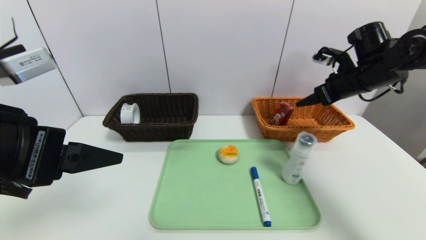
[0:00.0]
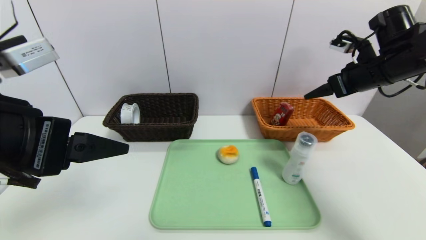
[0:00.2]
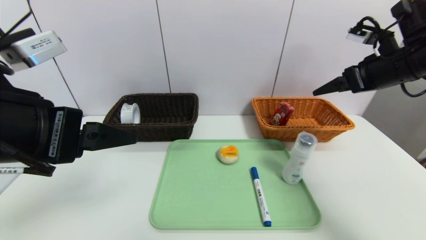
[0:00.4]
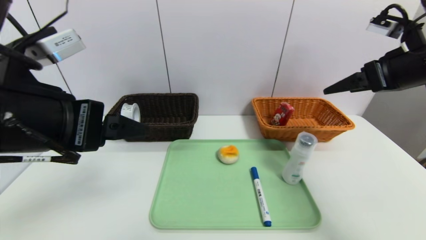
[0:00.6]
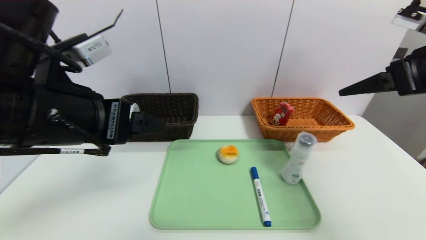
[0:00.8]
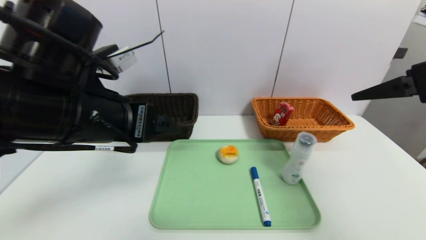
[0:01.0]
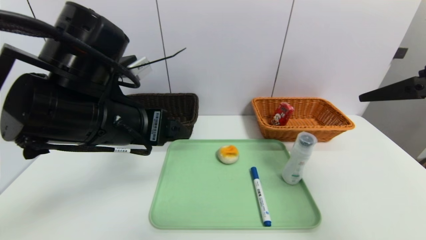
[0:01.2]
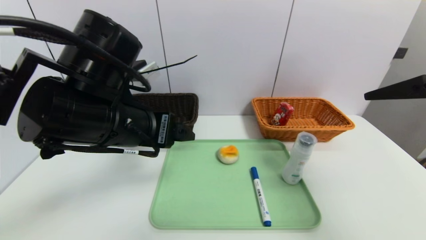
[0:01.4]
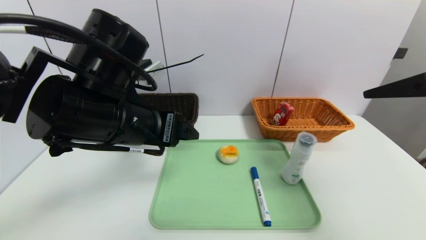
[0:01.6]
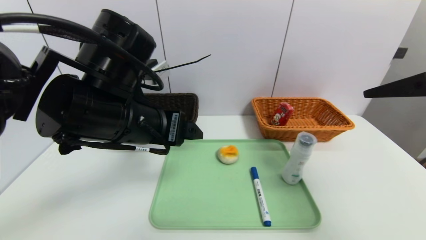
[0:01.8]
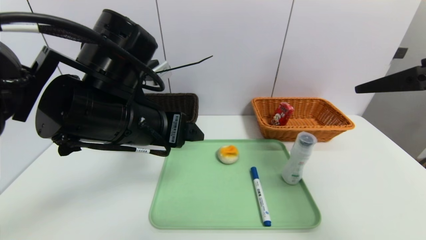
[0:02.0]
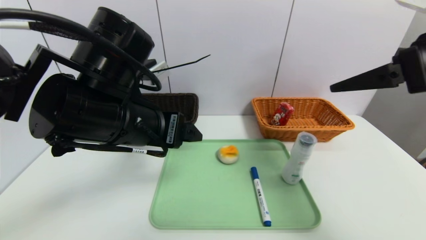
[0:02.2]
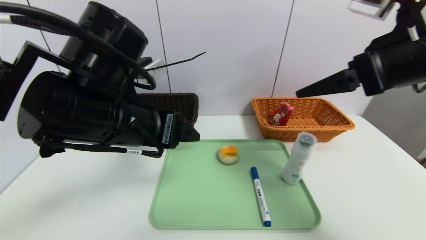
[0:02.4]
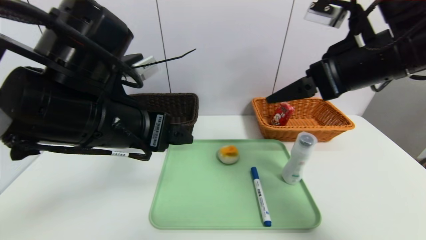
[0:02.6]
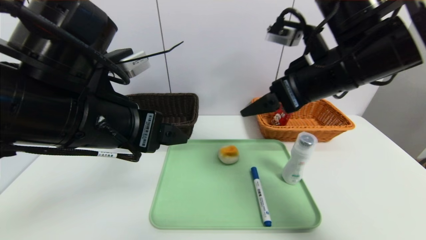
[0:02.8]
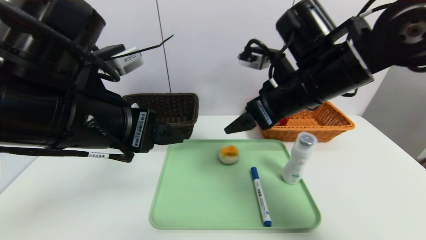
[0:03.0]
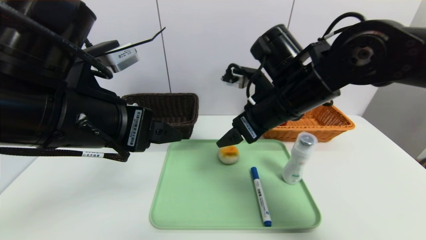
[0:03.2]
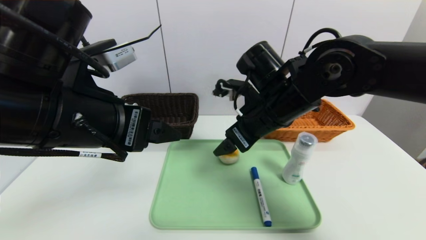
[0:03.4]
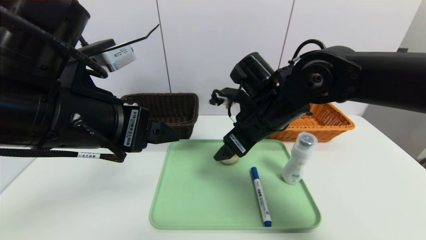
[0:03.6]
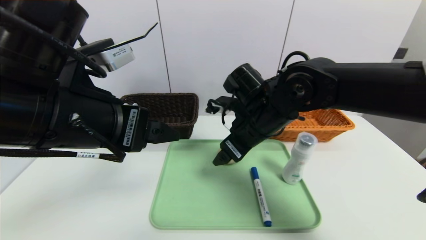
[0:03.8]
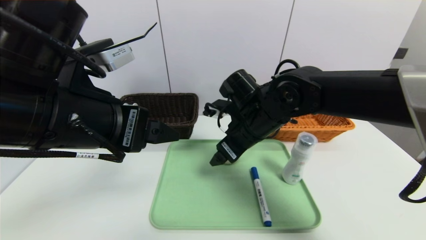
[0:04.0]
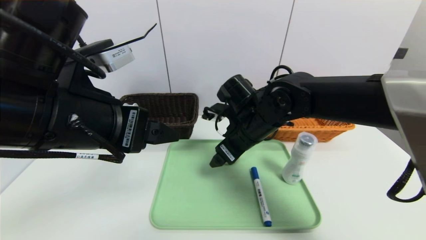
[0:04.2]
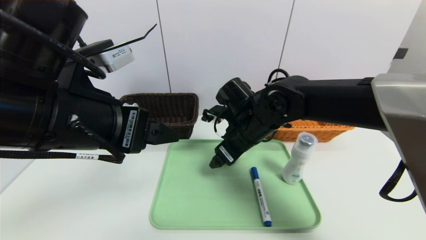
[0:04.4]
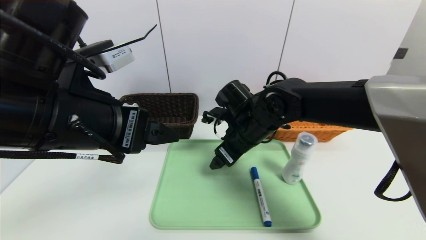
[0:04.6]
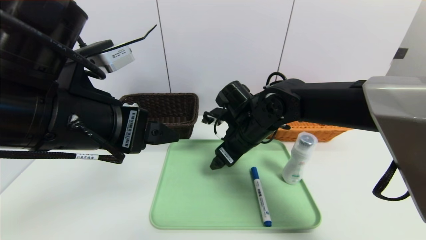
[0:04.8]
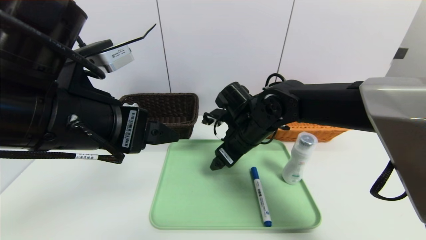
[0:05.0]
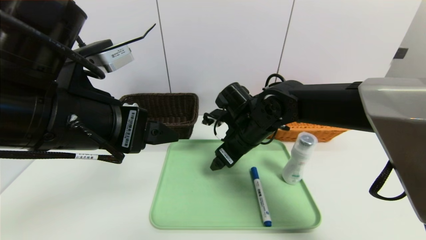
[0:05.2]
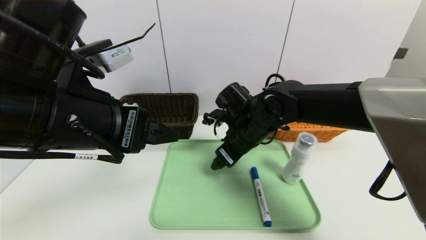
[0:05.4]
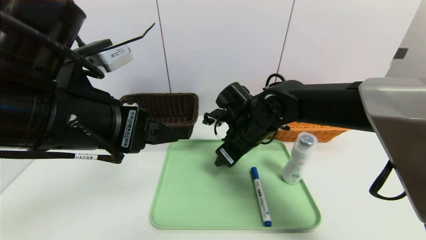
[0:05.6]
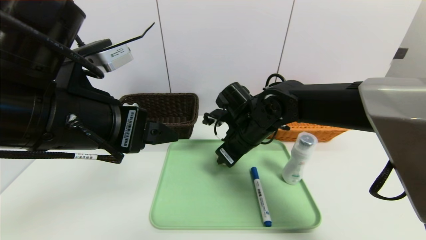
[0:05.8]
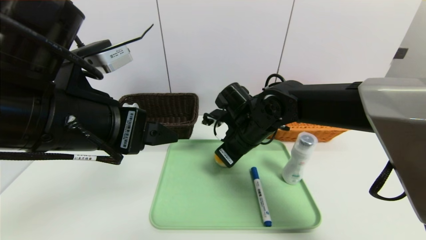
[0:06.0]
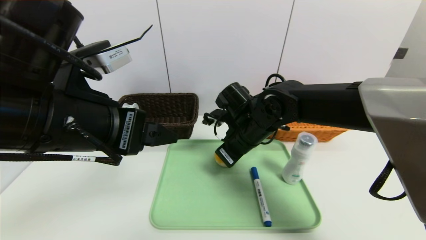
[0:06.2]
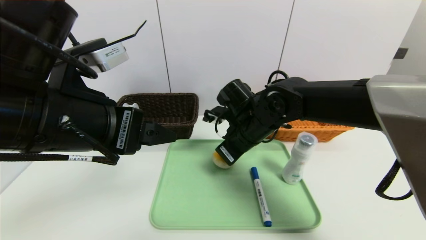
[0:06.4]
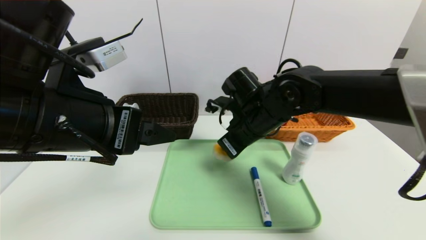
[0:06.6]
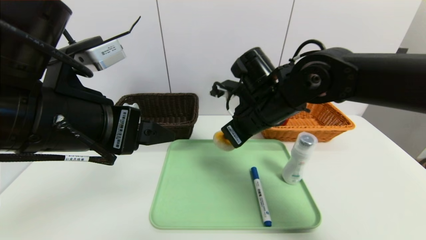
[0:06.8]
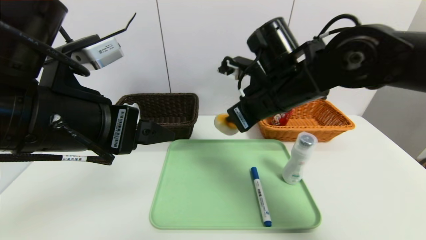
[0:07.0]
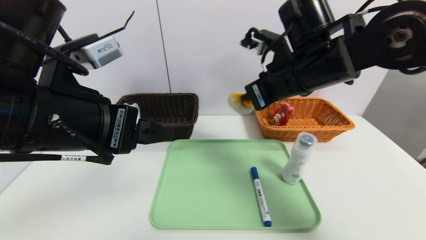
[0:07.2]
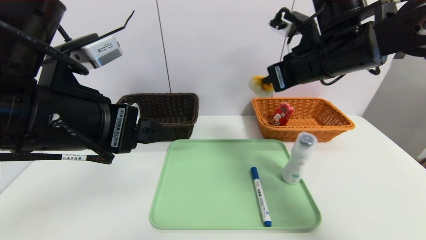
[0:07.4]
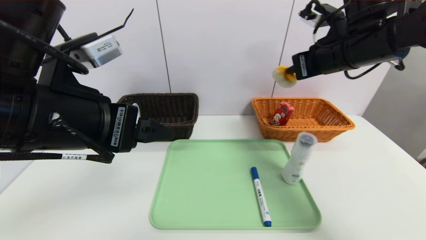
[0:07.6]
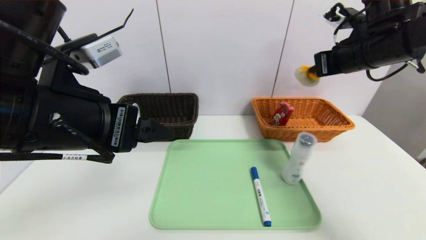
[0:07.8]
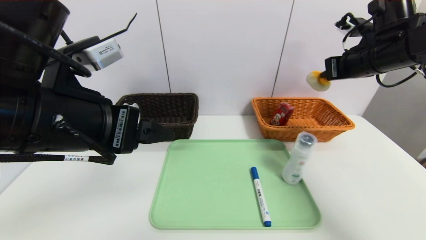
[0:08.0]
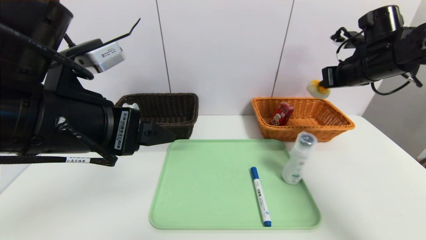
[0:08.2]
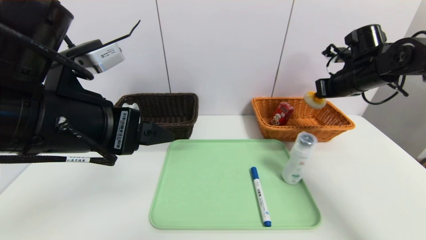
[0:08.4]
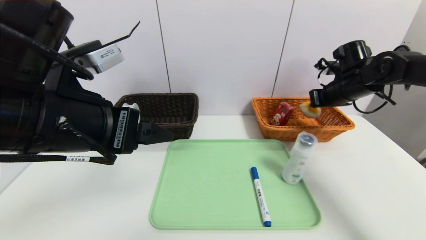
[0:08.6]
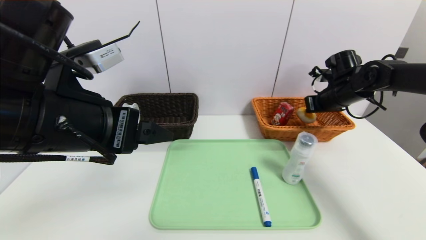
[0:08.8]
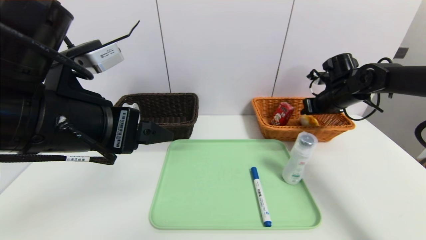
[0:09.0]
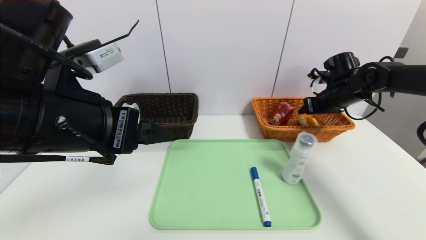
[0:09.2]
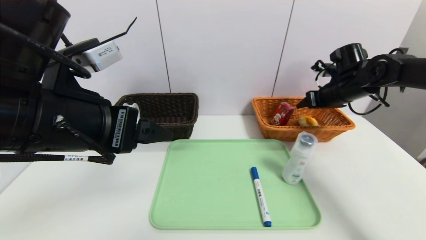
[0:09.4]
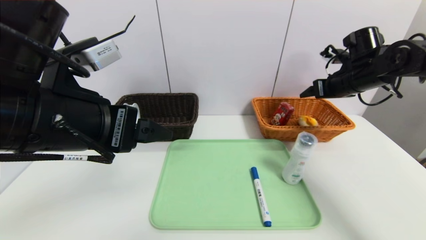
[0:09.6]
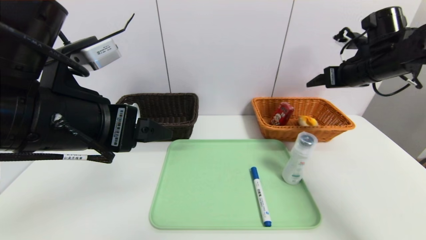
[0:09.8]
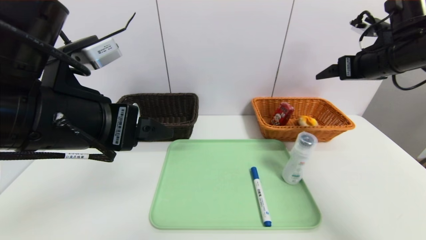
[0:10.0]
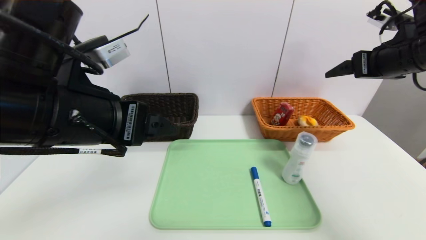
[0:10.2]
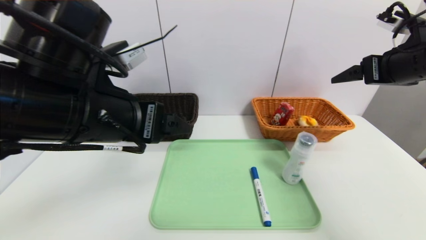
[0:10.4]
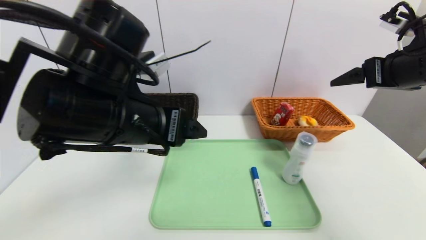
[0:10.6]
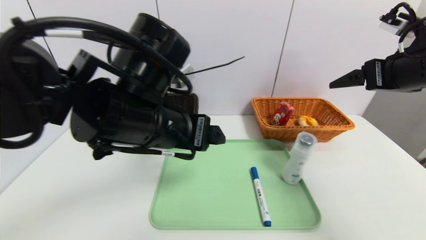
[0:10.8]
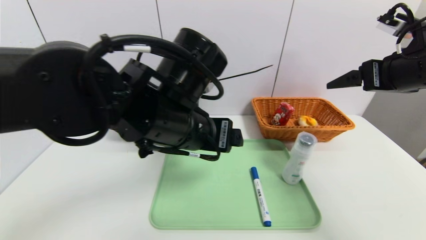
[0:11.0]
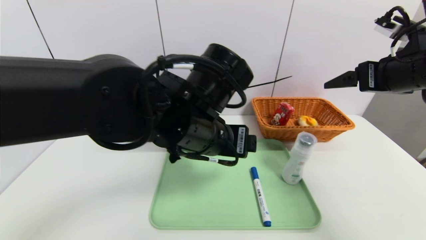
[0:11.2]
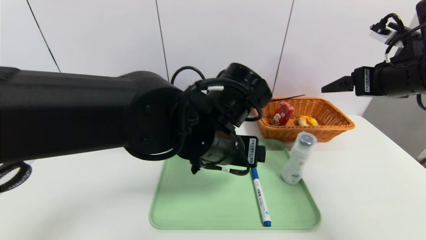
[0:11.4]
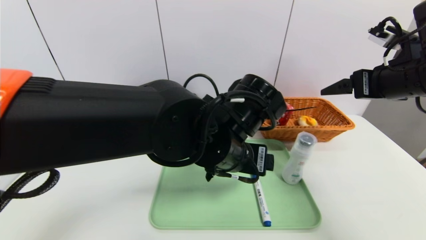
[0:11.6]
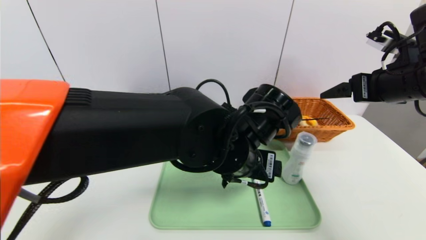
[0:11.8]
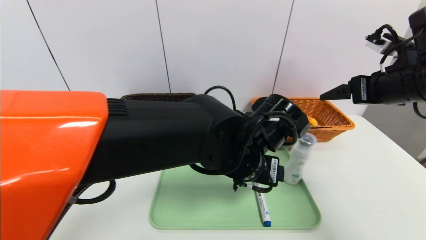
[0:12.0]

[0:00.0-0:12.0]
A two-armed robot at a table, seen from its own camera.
Task of the whole recording: place the food in the right basket with the right gripper, and place the non food items in the left basket with the left gripper.
Step, 0.2 to 9.4 s: Grasp the egg yolk pastry and put it in the right basket.
0.0 to 1.6 s: The right gripper travels backward by approximately 20 cm, while the left gripper goes about 15 cm to the right and forward.
1.6 to 3.0 s: The right gripper moves to the left and forward, roughly 20 cm; the left gripper moves about 5 cm.
3.0 to 4.4 s: The right gripper shifts roughly 15 cm downward, to the left and forward.
4.4 to 6.0 s: The right gripper closes its fingers.
6.0 to 7.6 s: The right gripper heads to the right and upward, covering some 25 cm.
7.6 to 9.0 s: The right gripper travels downward, forward and to the right by about 20 cm, and opens.
9.0 to 10.4 s: The right gripper is displaced backward and upward by about 20 cm, and opens up.
10.4 to 12.0 s: The left gripper heads to the right and downward, covering some 20 cm.

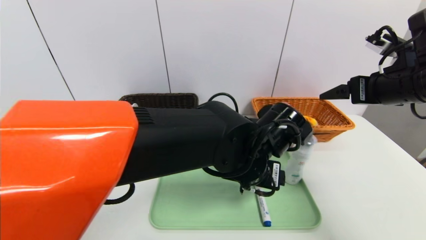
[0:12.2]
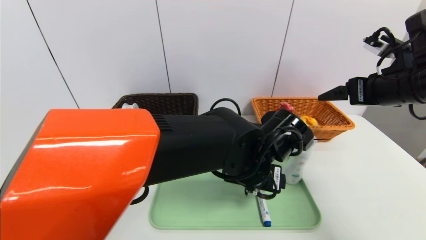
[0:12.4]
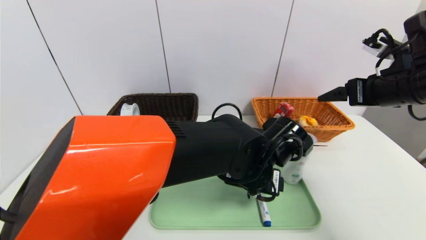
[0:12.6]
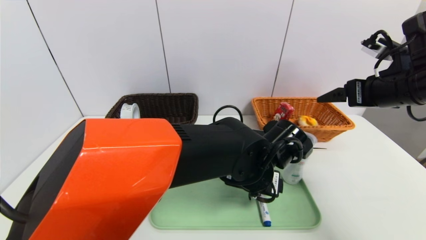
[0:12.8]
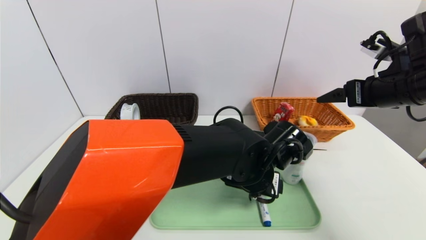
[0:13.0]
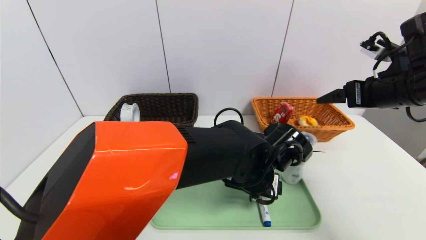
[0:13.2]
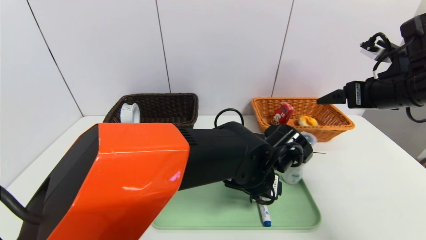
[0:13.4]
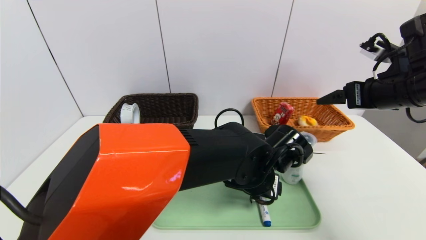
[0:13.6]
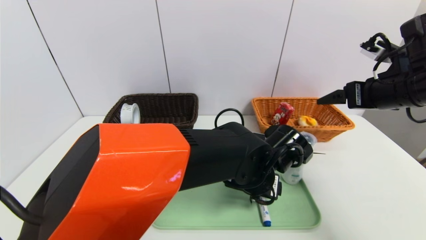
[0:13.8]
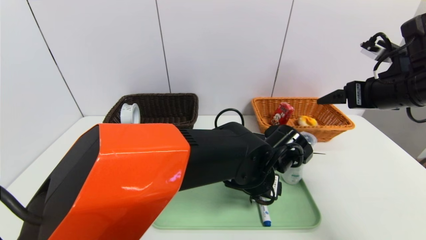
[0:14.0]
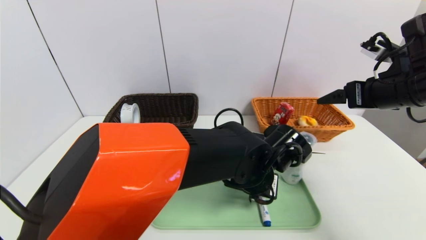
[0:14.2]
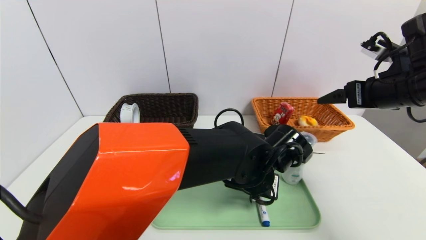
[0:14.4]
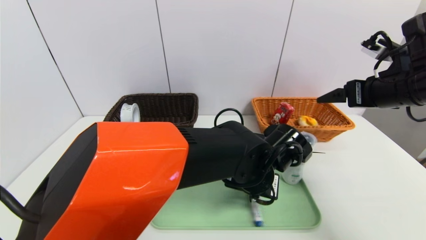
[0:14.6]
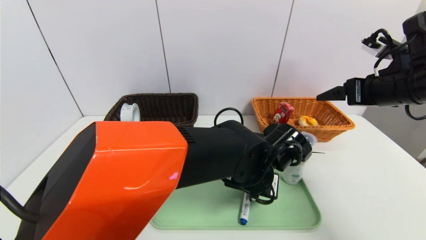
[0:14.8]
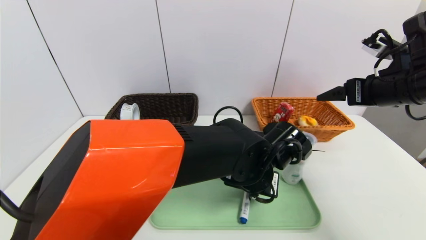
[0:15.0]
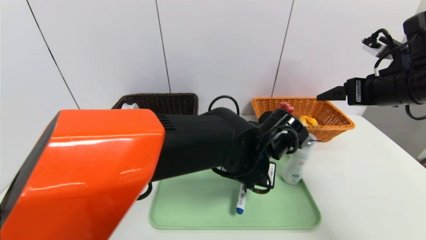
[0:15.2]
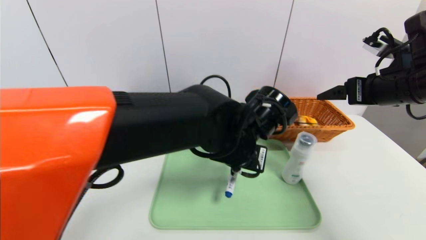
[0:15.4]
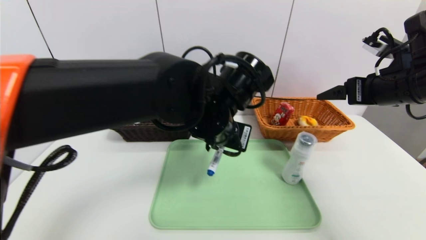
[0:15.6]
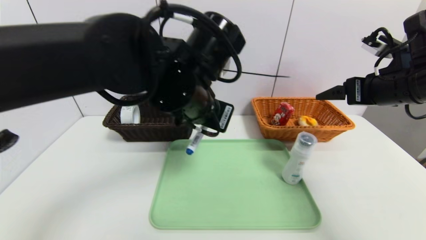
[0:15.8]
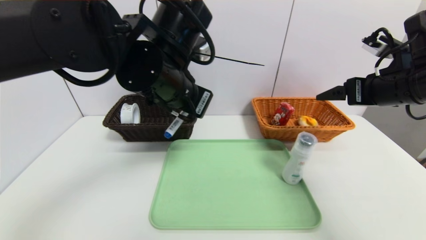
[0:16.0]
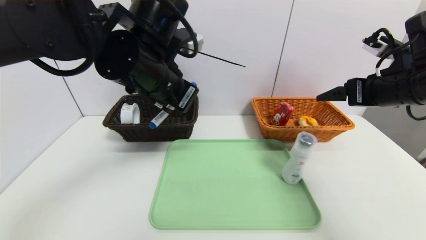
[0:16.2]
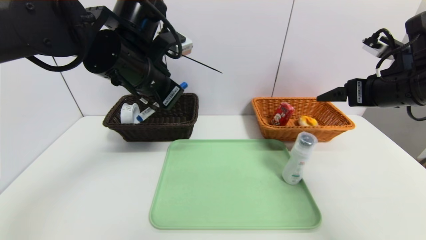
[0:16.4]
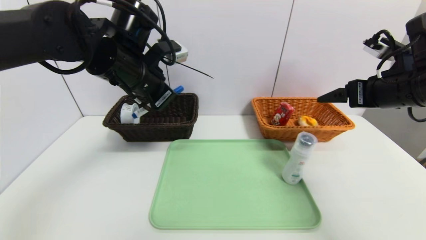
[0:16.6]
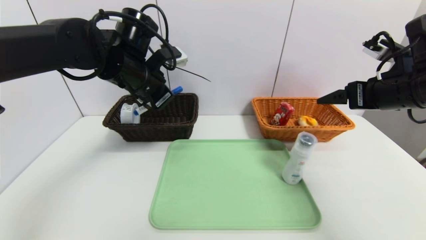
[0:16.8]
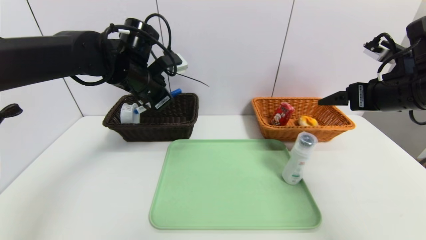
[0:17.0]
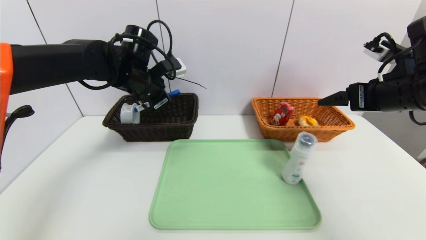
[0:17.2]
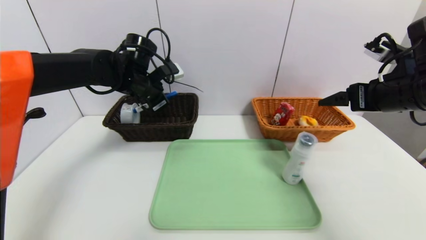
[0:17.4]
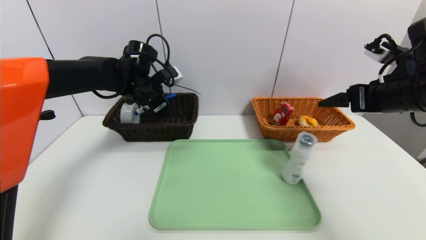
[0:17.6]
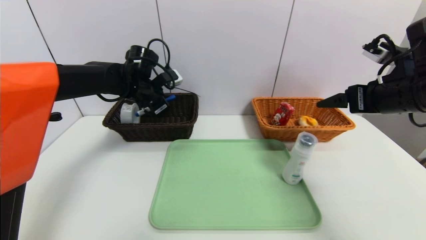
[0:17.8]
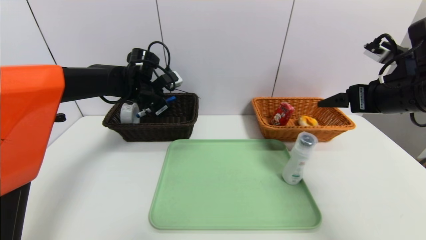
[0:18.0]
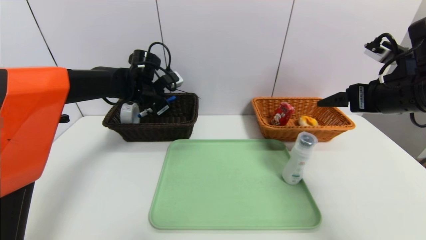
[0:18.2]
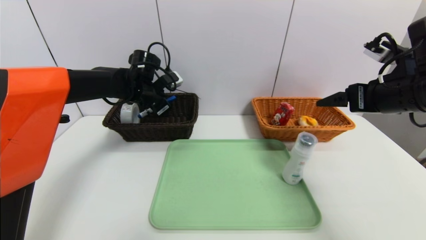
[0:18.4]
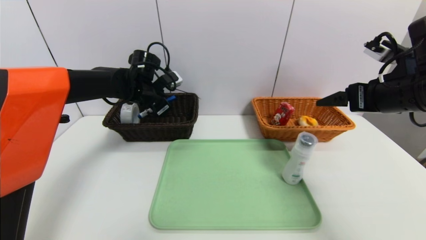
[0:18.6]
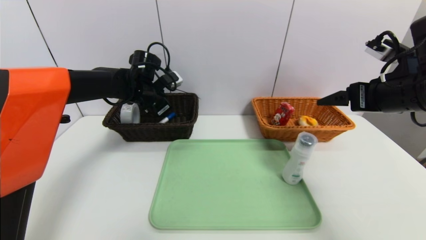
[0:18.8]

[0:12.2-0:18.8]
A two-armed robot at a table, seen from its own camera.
Task of the whole recording: place the food in the right basket with the right gripper, and place the non food items in the left basket with the left gripper.
13.8 to 15.4 s: The left gripper is displaced upward by some 5 cm, and closes up.
15.4 to 17.2 s: The left gripper is displaced to the left and forward by some 25 cm.
17.2 to 18.8 s: The left gripper moves forward and downward, approximately 5 cm.
